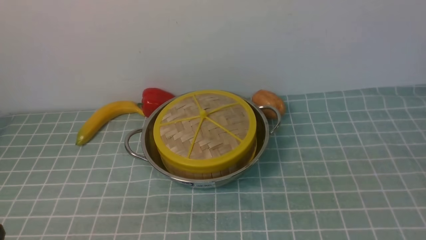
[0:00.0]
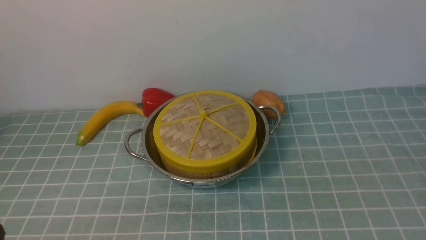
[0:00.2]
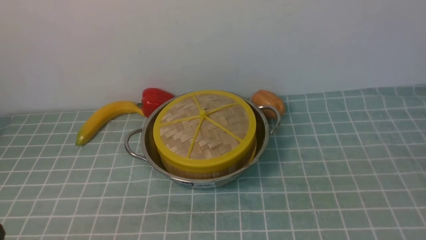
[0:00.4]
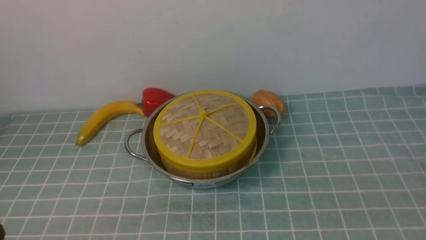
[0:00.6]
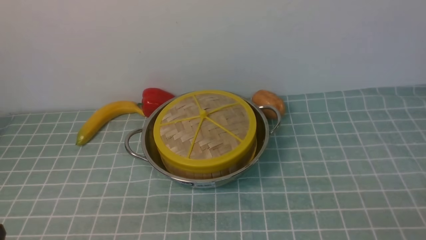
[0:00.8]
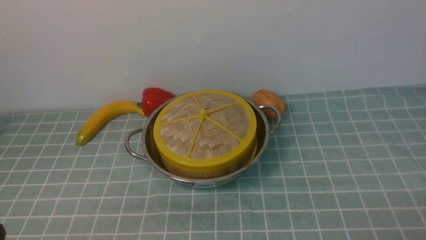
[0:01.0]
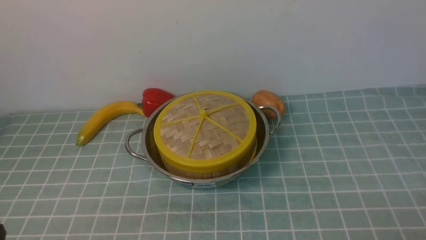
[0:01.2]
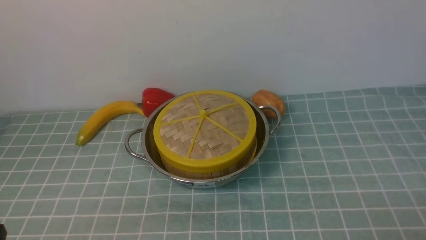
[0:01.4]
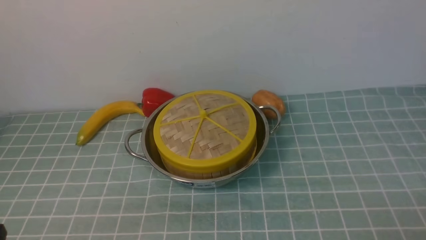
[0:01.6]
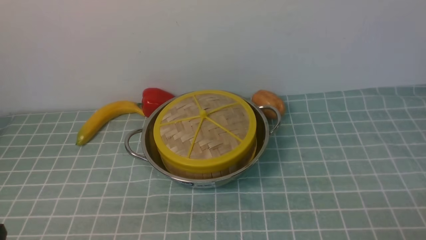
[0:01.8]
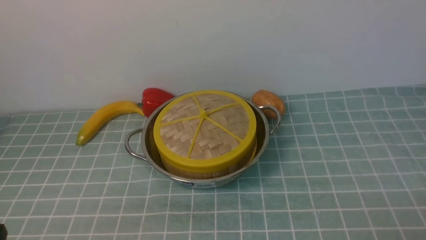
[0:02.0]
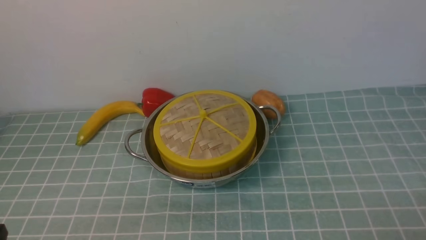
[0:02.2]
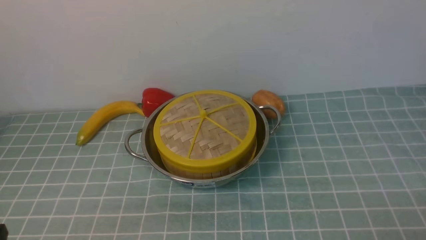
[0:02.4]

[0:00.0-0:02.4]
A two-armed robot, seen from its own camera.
Task of the whole recording: place the steamer in the pot on the blue tablecloth, and put the lid on the steamer.
0:01.2 to 0:02.4: Both grippers stay put.

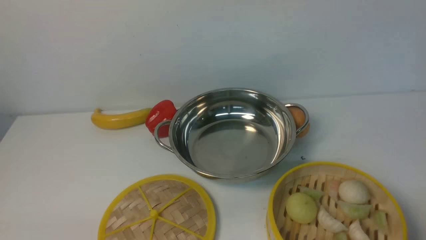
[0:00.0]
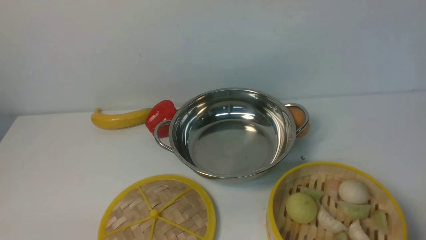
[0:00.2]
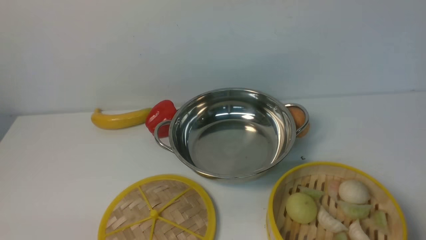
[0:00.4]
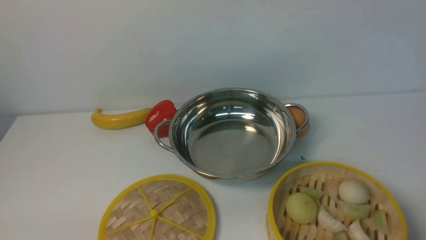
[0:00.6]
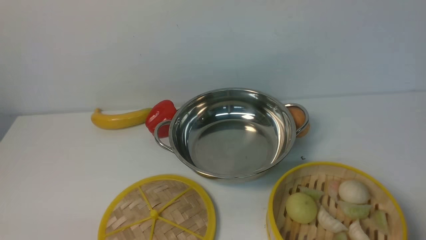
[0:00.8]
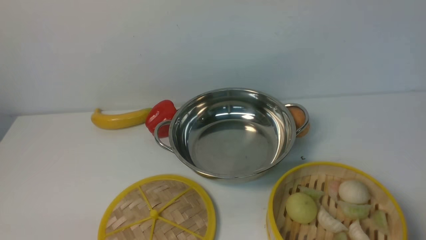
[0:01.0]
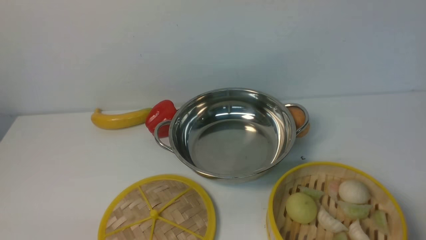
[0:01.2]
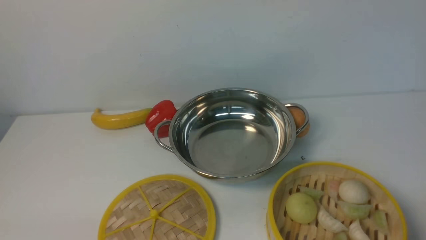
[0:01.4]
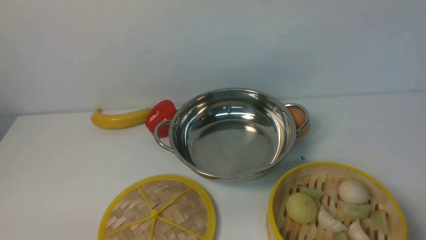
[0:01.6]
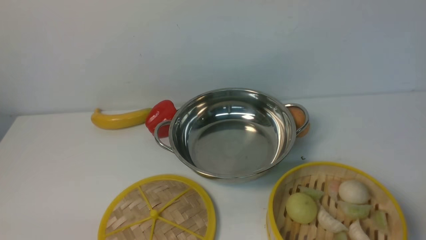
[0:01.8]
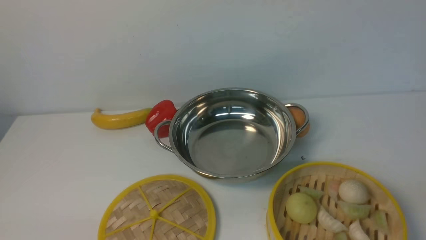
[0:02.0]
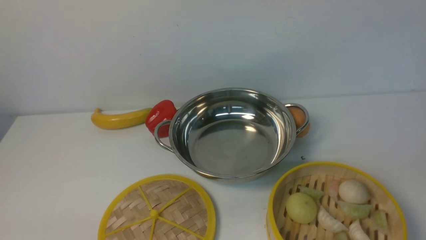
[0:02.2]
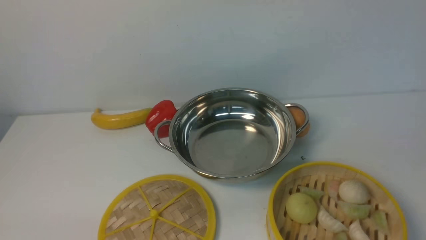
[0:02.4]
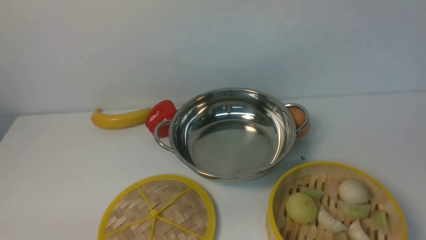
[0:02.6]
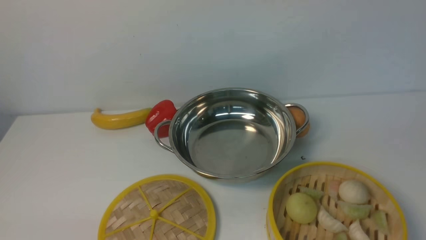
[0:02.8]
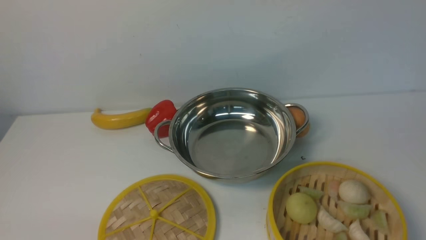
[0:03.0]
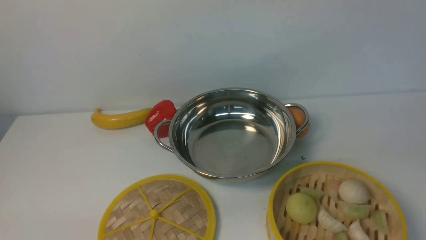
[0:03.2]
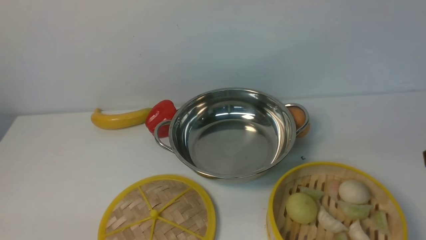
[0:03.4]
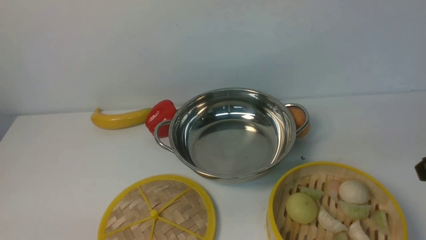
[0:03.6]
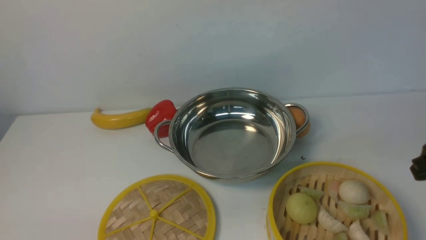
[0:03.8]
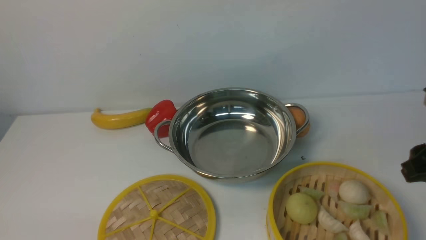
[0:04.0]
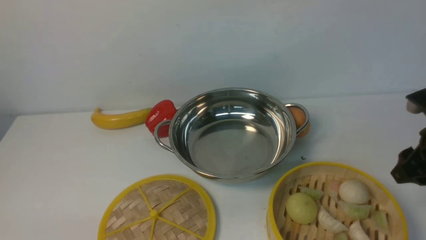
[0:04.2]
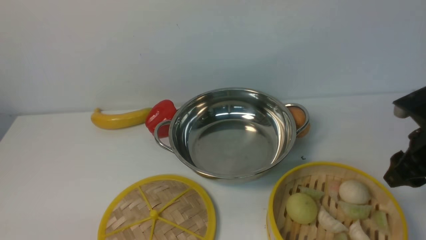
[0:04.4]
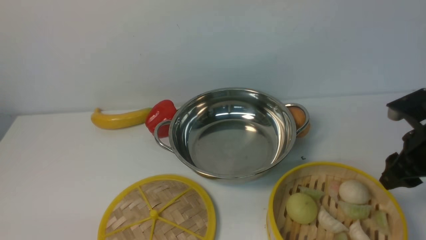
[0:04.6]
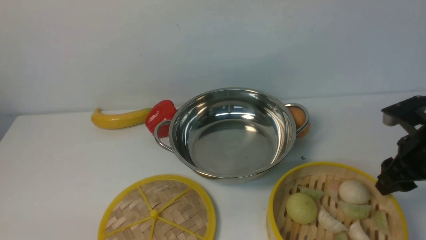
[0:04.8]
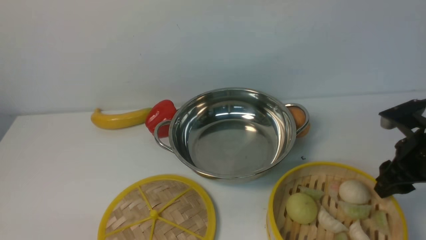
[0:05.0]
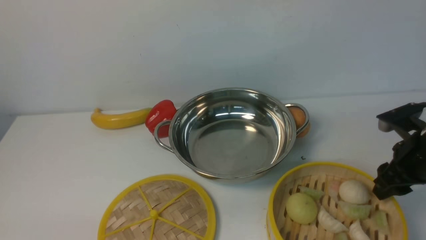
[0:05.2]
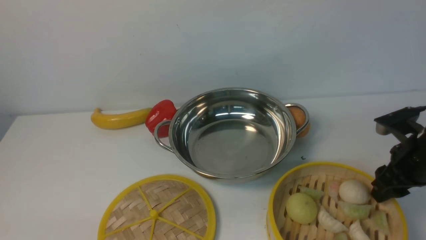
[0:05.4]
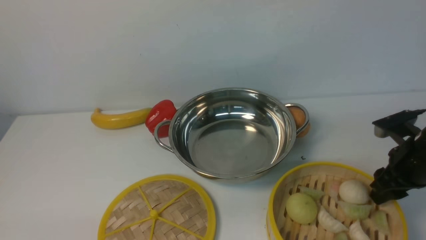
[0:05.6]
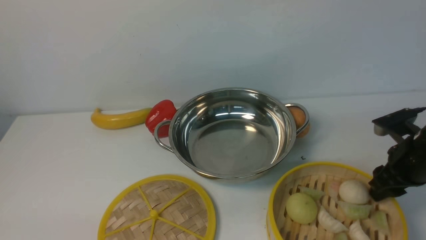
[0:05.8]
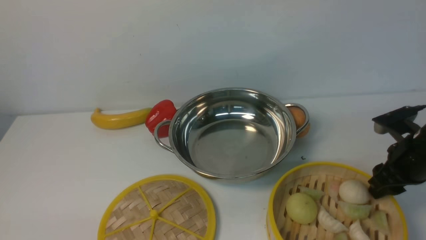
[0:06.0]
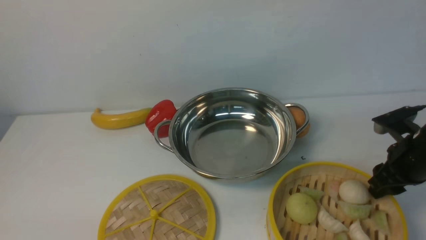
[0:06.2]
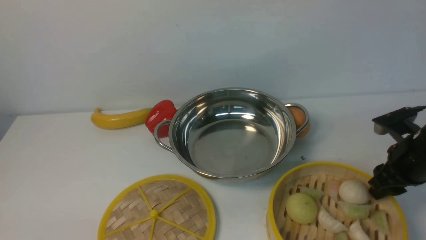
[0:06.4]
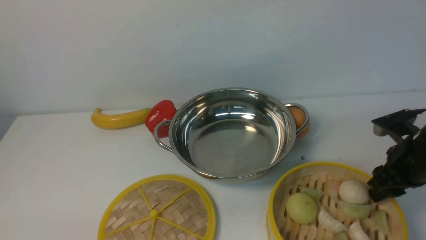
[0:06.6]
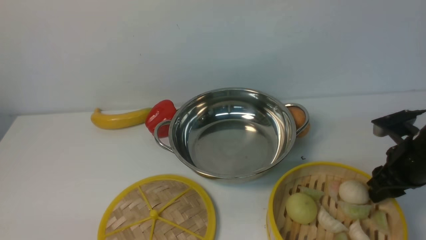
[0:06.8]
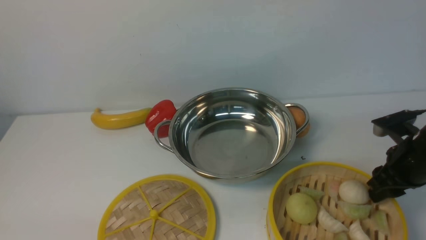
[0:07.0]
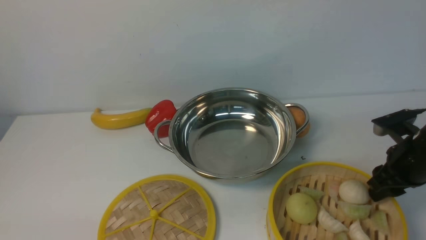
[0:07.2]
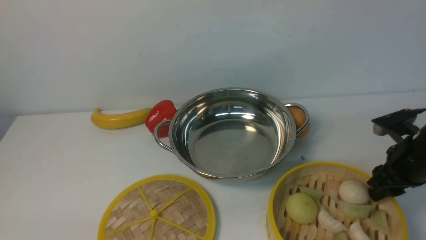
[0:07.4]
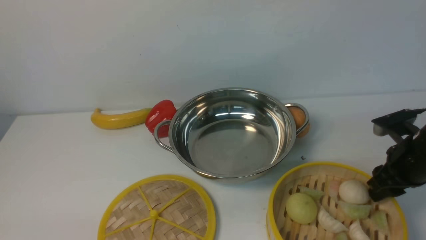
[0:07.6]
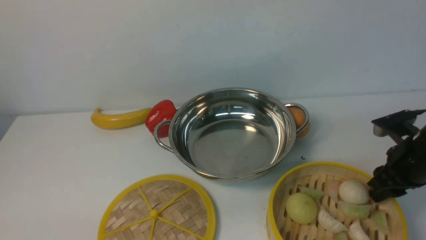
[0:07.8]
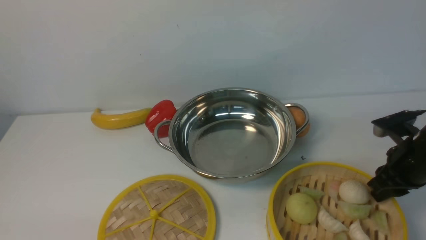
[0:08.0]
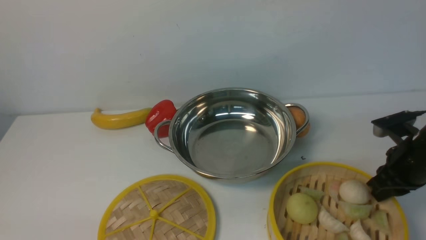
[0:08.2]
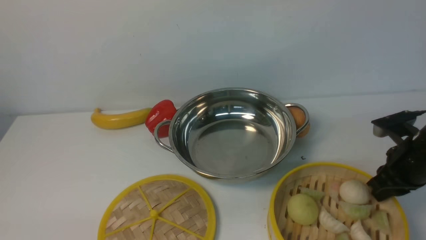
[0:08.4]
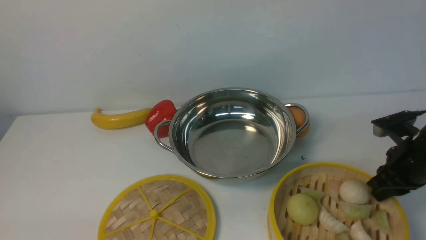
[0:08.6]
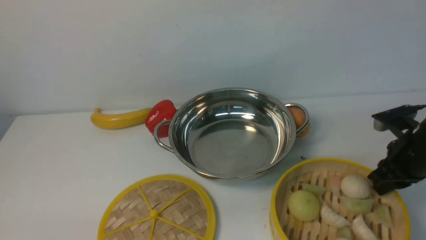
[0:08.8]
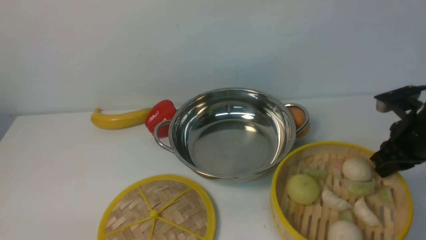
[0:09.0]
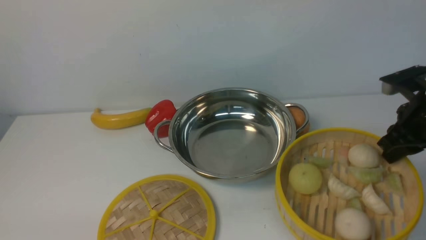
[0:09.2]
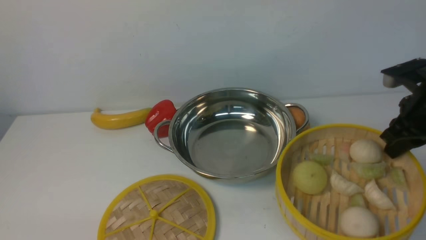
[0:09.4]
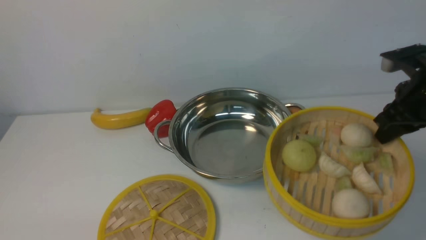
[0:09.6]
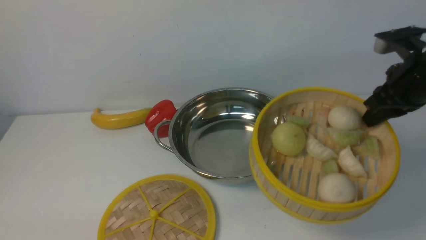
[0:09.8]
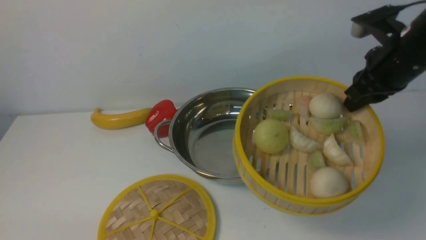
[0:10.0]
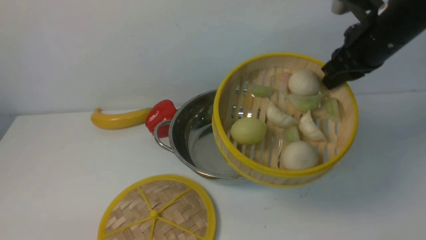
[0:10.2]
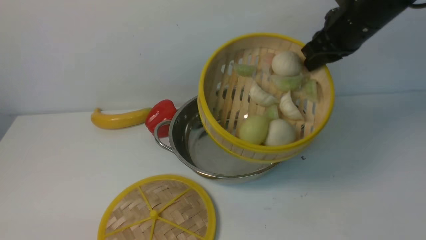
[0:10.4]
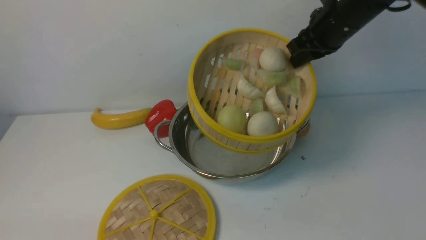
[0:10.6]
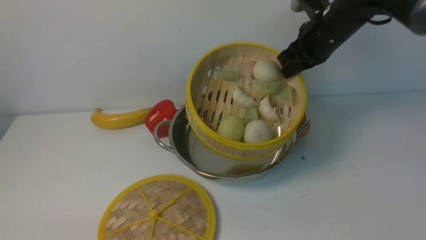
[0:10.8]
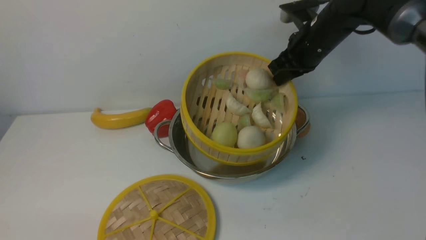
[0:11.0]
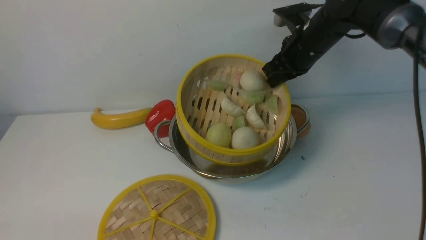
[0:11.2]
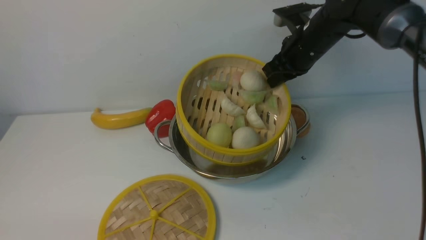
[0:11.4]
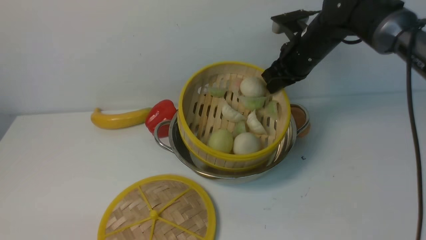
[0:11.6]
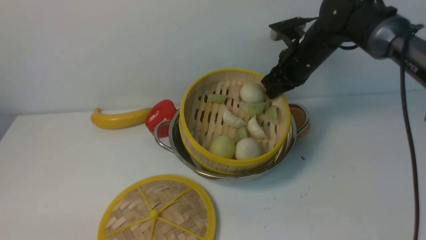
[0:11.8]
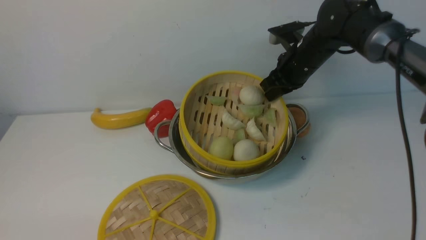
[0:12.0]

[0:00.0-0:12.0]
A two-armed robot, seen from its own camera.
Task of the whole recording: place the steamer in the pot on the white table, and put the lid on the steamer.
Step, 0:00.0 to 0:09.8: use the right arm to lift the steamer closest to it.
0:00.0 to 0:01.6: Neither gripper changes place.
0:03.0 to 0:04.4: The right gripper heads forward and downward, covering about 20 cm, and opens.
0:04.4 to 0:06.0: The right gripper is displaced downward by about 5 cm.
0:06.0 to 0:07.6: Both grippers stay about where they are.
0:07.6 to 0:09.0: The right gripper closes its fingers.
0:09.0 to 0:10.4: The right gripper is displaced upward, to the left and forward by roughly 20 cm.
0:10.4 to 0:12.0: The right gripper shifts approximately 10 cm downward and forward.

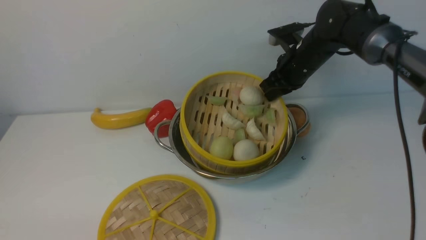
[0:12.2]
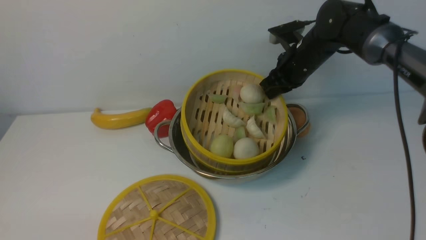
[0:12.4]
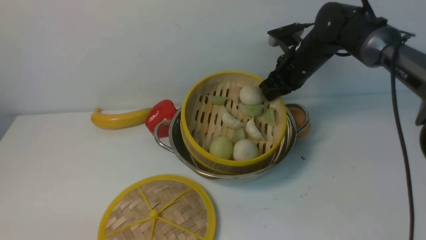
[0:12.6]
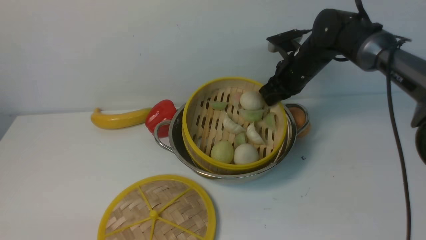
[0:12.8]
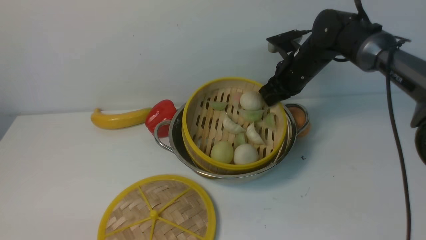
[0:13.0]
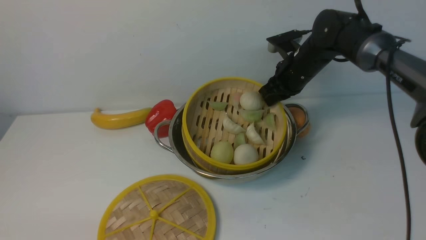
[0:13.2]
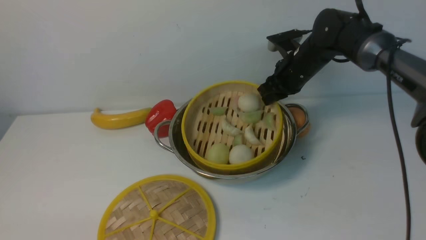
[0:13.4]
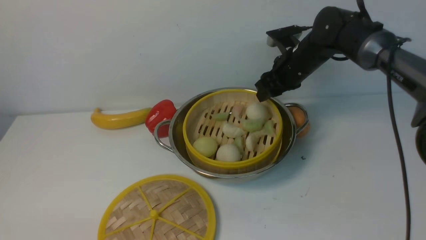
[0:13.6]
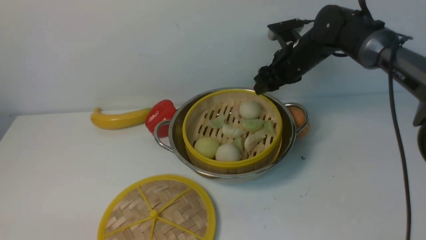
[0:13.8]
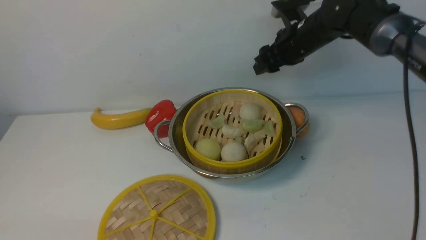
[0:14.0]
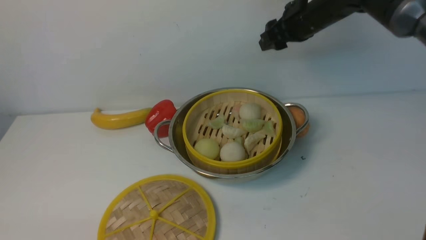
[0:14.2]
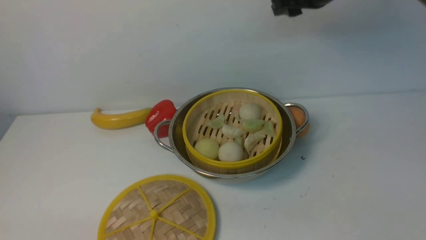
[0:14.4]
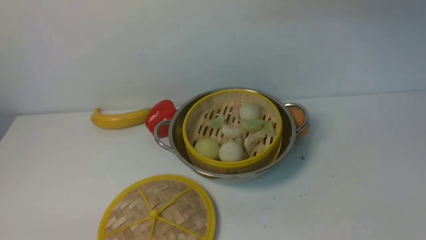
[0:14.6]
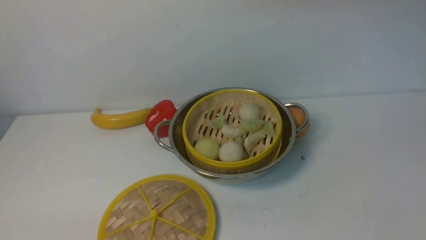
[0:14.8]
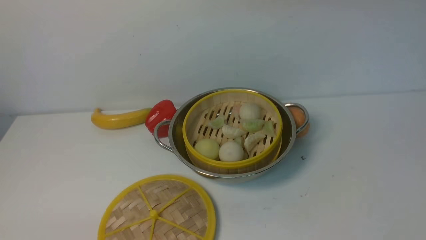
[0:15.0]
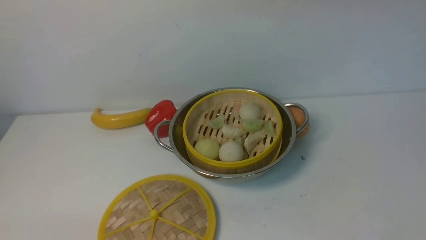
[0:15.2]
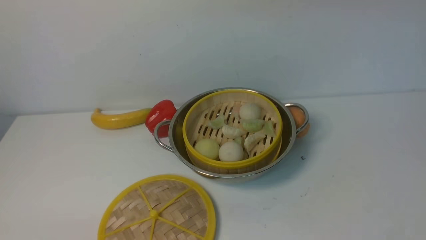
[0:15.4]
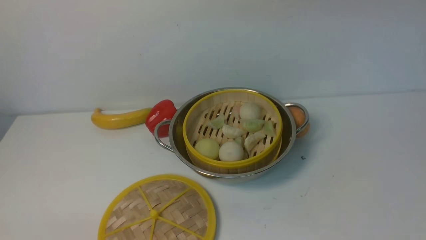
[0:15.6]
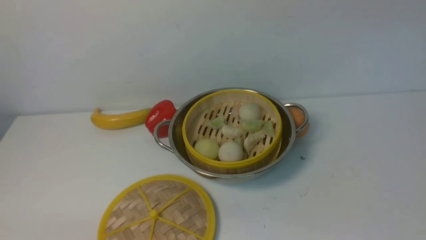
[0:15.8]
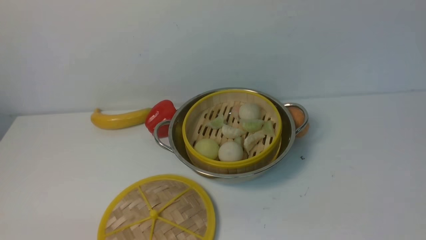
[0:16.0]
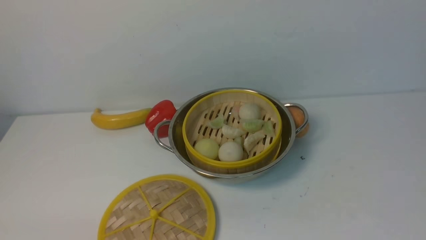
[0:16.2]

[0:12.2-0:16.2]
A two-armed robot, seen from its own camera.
Task of the whole recording: place the steamer in the pot on the white table, and put the lid on the steamer.
Step, 0:12.2 to 0:14.4: use the right arm to put the steamer into the iron steamer pot in the middle.
0:12.2 to 0:13.6: The right gripper opens up.
0:13.6 to 0:14.8: The right gripper shifts some 25 cm upward and backward, and closes its fingers.
